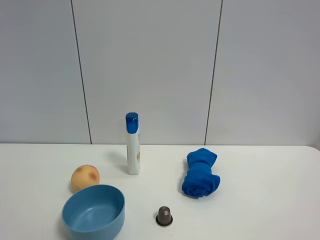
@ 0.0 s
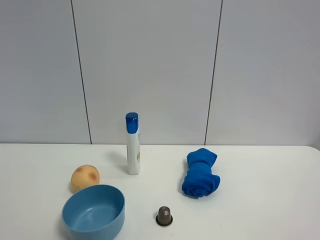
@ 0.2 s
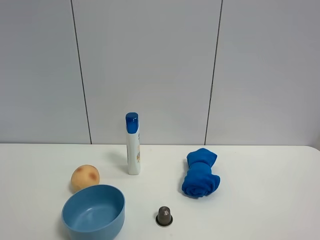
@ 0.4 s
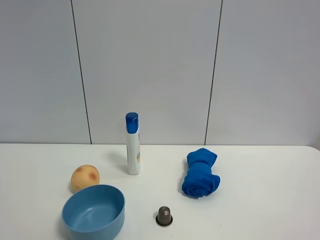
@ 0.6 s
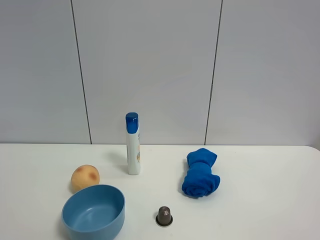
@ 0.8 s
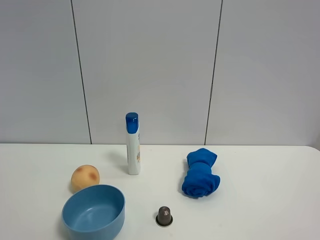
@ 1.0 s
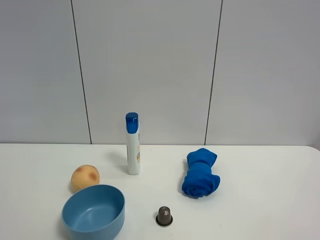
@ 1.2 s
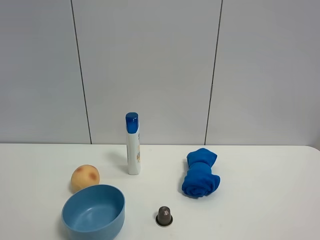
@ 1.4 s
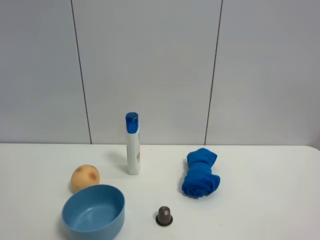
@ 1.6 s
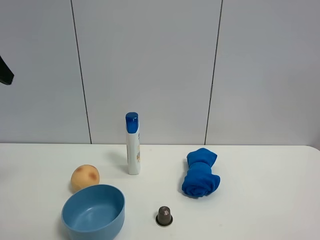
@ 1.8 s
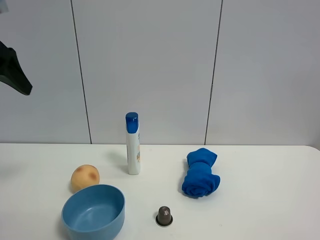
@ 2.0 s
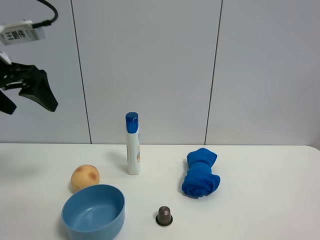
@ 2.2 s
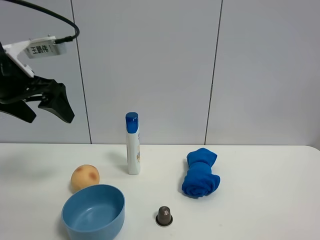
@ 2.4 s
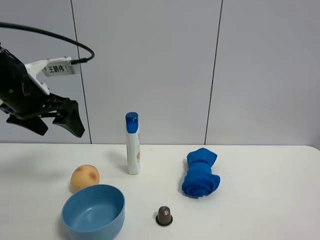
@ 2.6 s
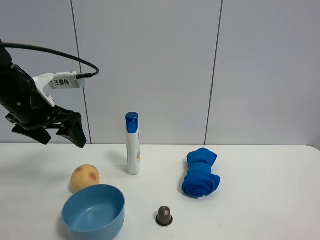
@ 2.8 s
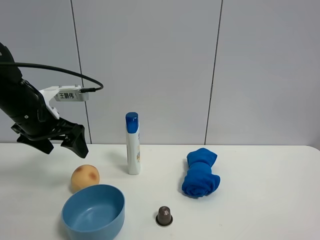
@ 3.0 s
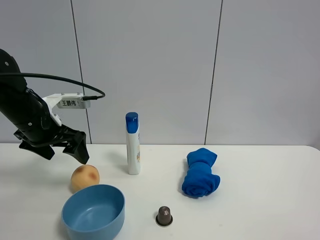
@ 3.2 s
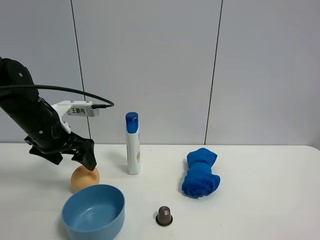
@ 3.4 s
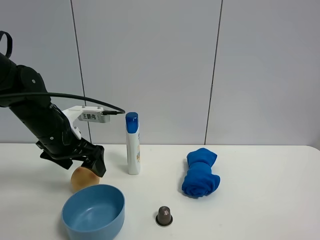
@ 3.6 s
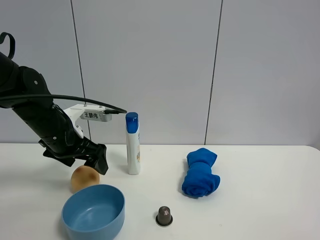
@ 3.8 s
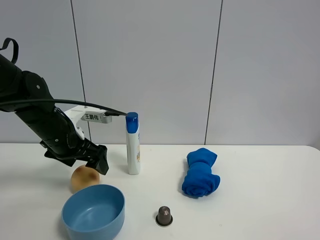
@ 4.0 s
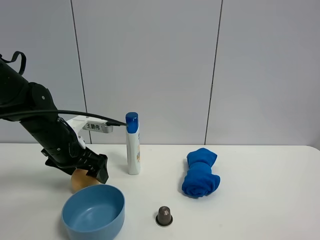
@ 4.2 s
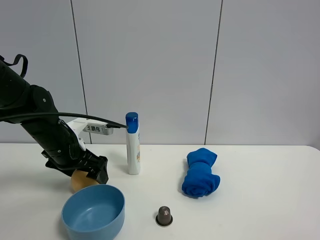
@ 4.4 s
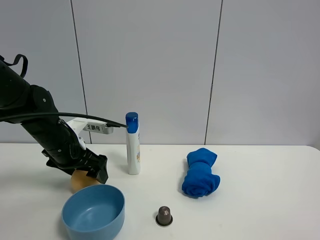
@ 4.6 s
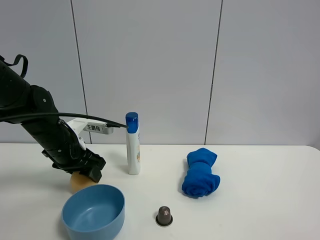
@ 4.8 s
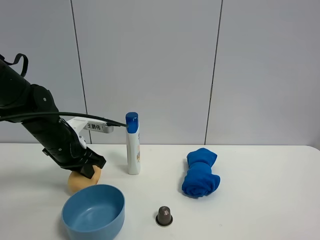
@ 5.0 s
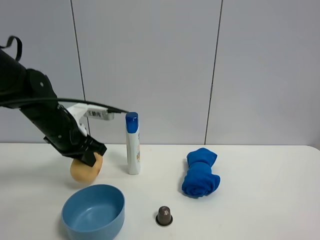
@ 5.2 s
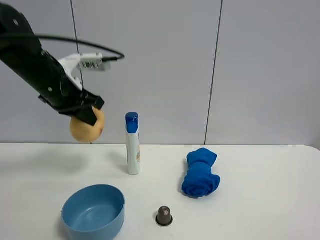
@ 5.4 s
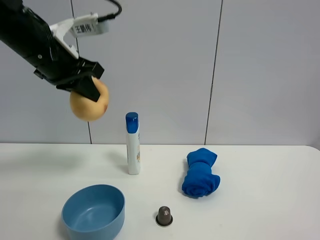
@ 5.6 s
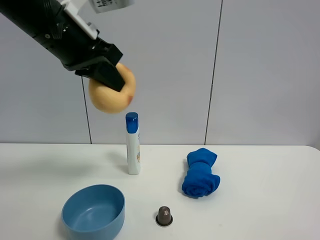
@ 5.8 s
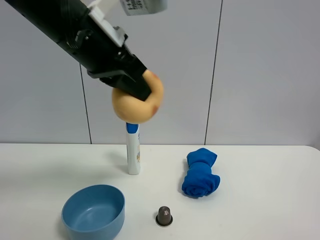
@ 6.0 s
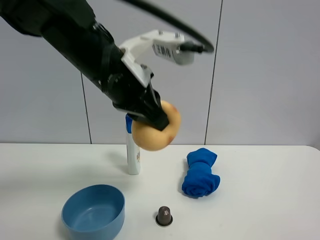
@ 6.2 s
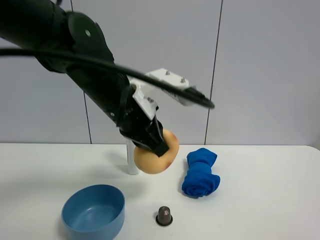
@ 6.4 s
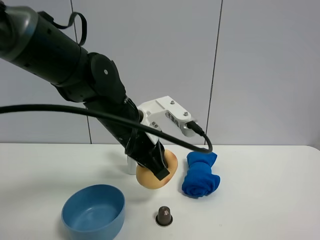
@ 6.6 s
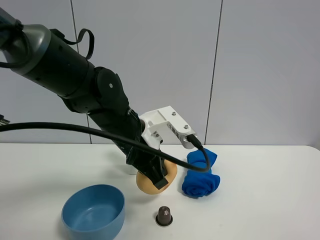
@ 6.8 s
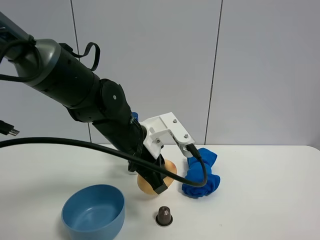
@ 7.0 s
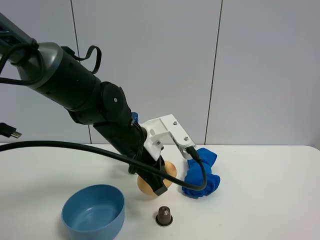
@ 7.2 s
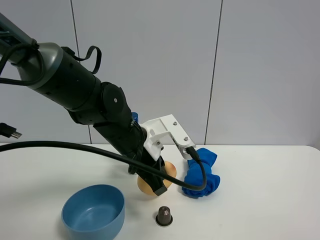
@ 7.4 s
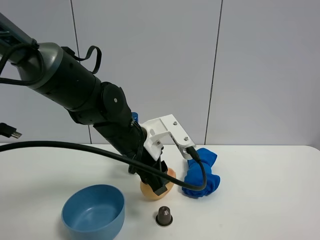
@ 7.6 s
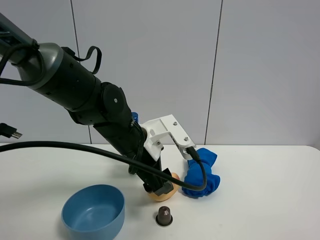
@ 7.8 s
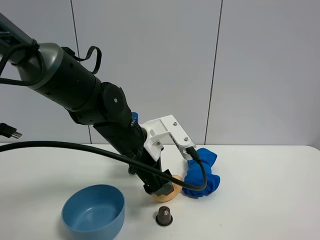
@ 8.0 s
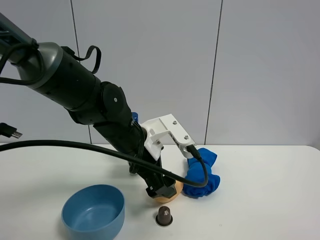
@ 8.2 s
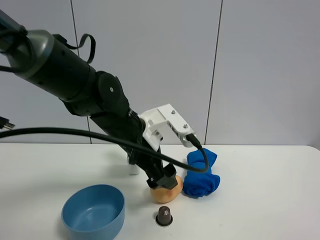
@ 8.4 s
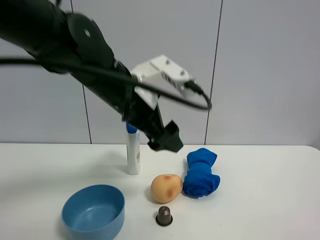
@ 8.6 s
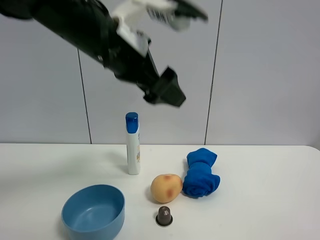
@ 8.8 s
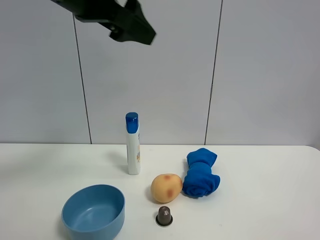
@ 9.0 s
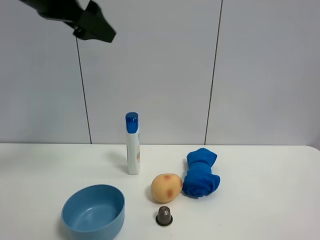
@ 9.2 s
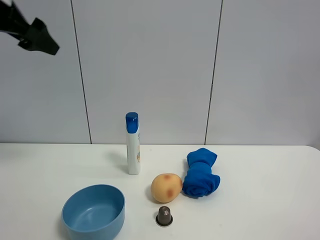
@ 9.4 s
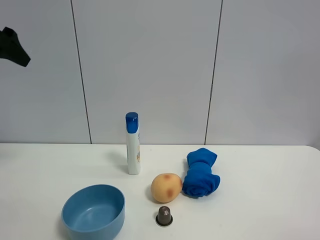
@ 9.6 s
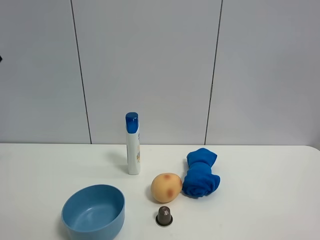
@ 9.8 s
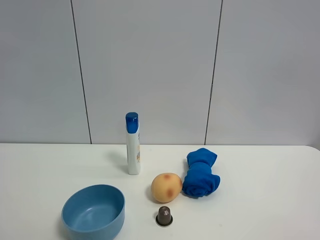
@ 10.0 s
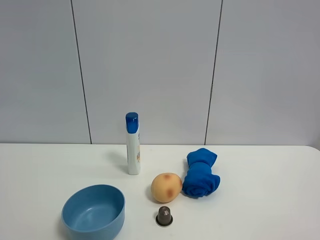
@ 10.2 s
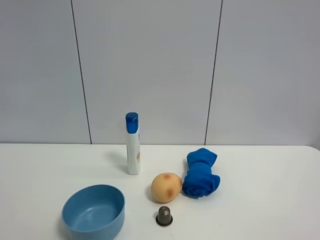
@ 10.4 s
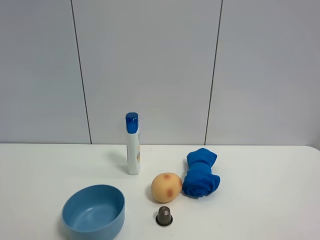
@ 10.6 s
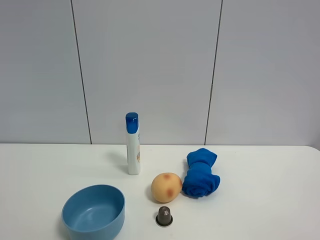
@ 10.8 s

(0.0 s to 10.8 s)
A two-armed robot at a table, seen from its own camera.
Task of the whole recording: the gripper move the object.
Step, 0.0 s - 5.0 s: Grasp the egg yolk pastry with the left gripper.
Step, 5.2 s - 7.6 s: Place the egg yolk pastry on the table with the left gripper.
1.6 s - 3.0 s: The left gripper goes roughly 25 cm downward and forward.
3.0 s - 4.6 s: The left gripper moves downward, approximately 5 cm.
4.6 s - 6.2 s: The left gripper is displaced to the right, upward and backward by some 20 cm, and closes.
6.2 s - 7.8 s: The left gripper is displaced downward by roughly 10 cm, and opens.
7.8 s - 9.2 s: The left gripper moves upward and to the left, some 30 cm.
9.2 s - 10.8 s: The left gripper heads backward, covering roughly 30 cm.

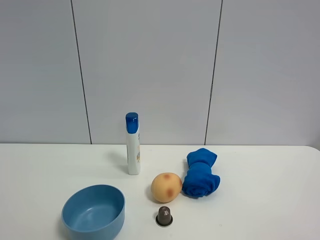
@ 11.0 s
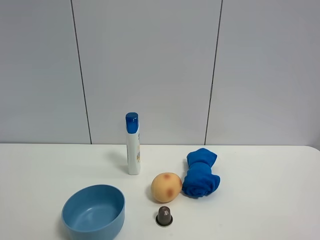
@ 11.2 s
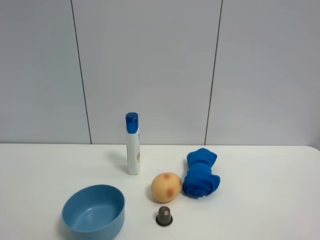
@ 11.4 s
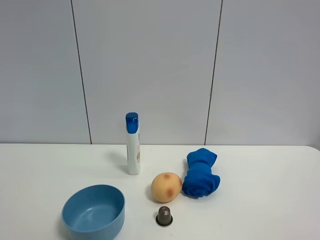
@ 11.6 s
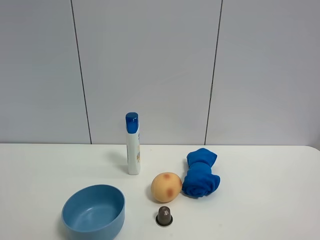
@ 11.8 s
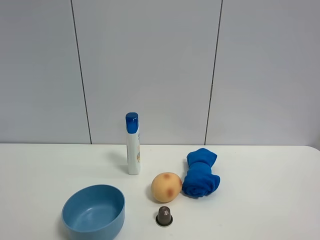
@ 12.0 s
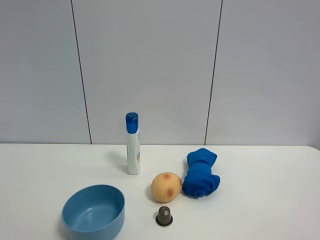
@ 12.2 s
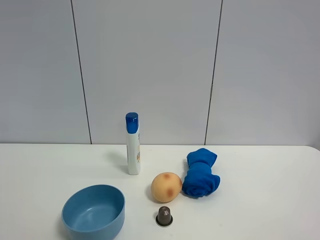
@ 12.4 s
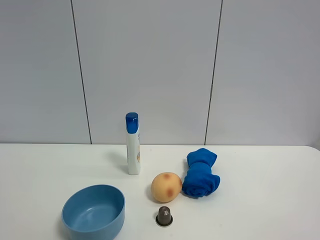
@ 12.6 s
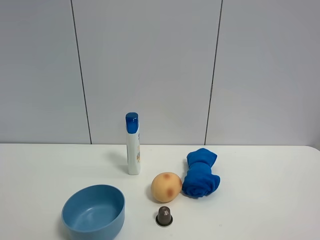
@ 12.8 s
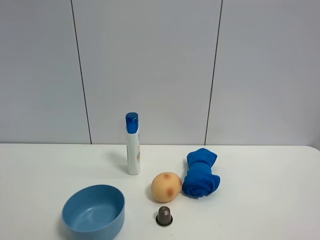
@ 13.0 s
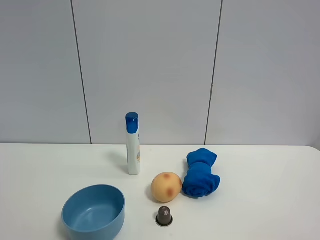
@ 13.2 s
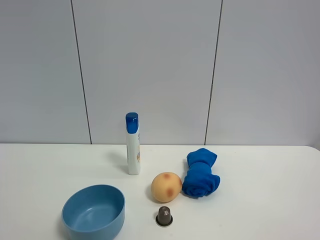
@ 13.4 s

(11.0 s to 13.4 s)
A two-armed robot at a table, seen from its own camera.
Task of the whole recording: the gripper move the object.
12.2 s - 13.4 s: Both grippers stay about where they are.
